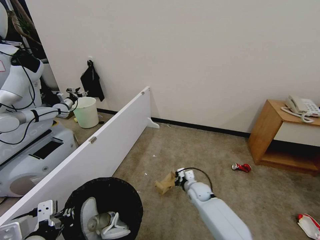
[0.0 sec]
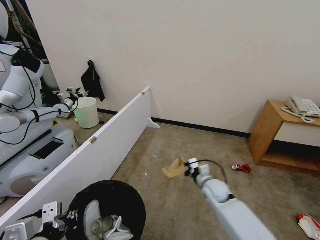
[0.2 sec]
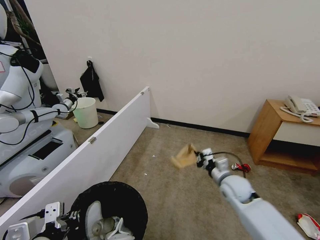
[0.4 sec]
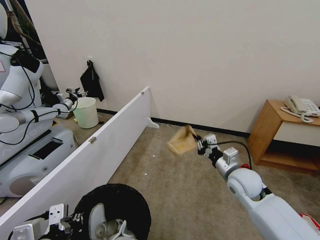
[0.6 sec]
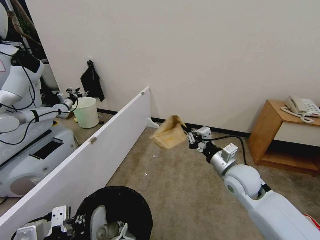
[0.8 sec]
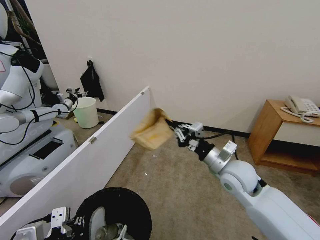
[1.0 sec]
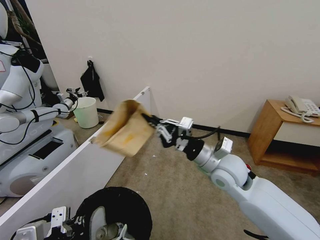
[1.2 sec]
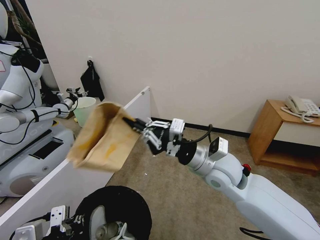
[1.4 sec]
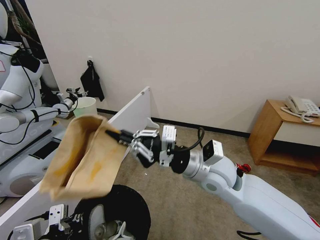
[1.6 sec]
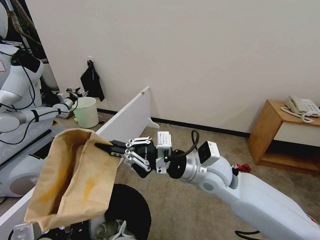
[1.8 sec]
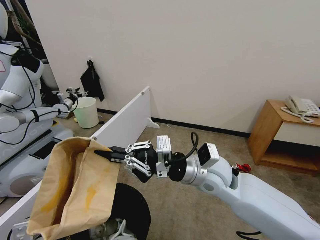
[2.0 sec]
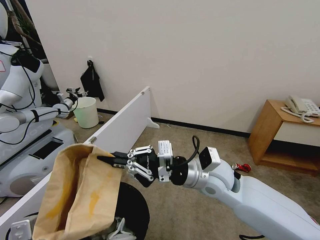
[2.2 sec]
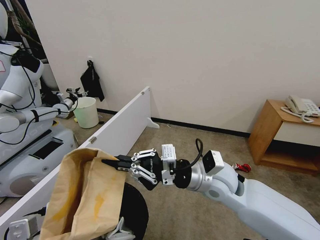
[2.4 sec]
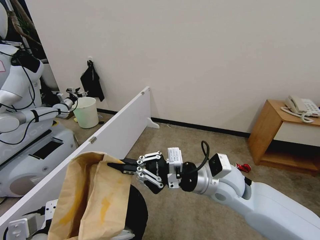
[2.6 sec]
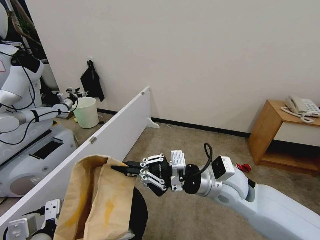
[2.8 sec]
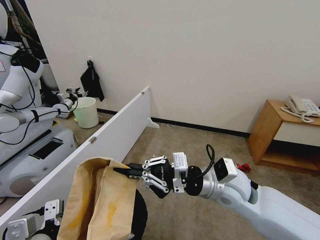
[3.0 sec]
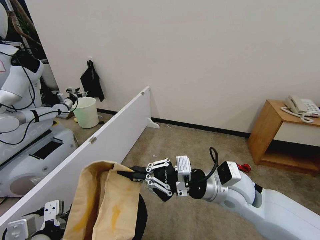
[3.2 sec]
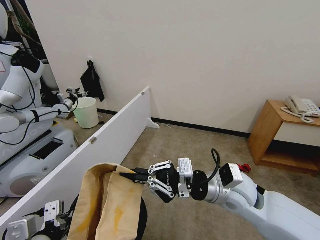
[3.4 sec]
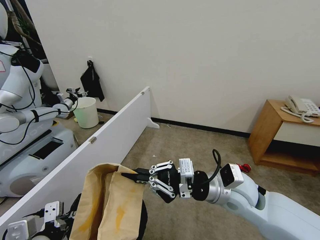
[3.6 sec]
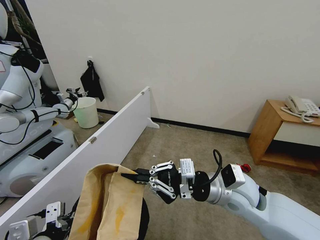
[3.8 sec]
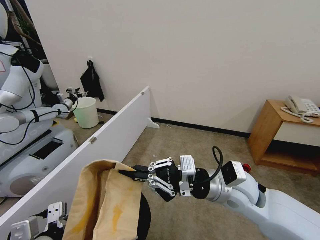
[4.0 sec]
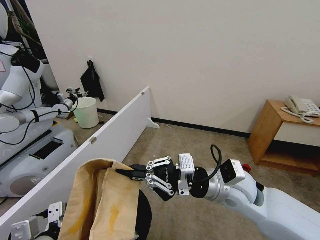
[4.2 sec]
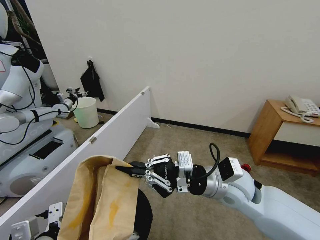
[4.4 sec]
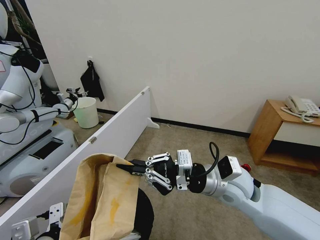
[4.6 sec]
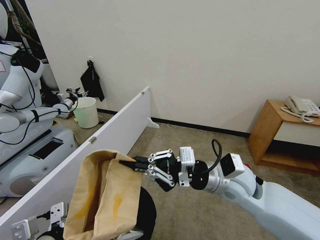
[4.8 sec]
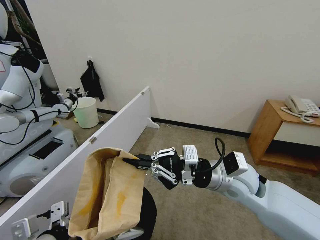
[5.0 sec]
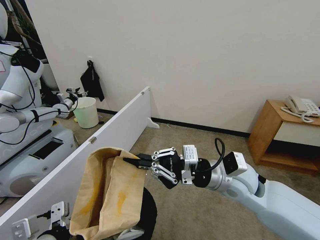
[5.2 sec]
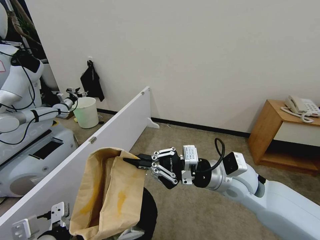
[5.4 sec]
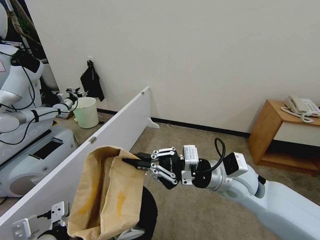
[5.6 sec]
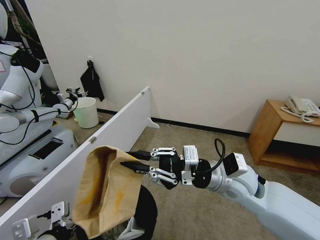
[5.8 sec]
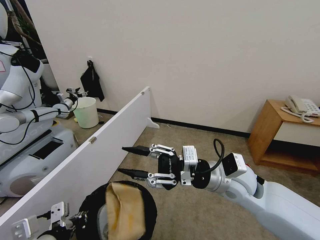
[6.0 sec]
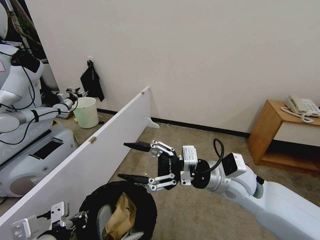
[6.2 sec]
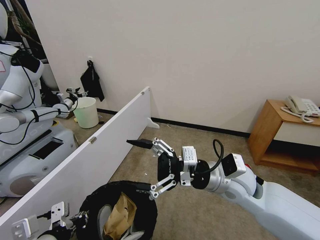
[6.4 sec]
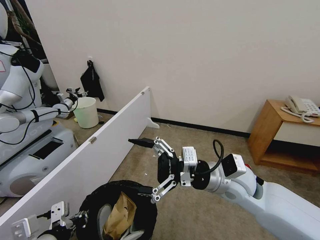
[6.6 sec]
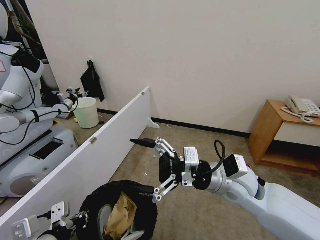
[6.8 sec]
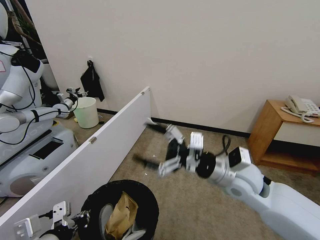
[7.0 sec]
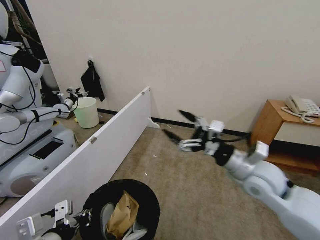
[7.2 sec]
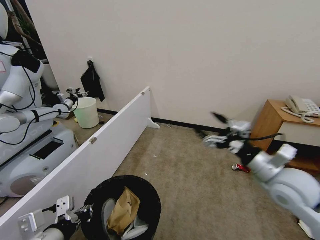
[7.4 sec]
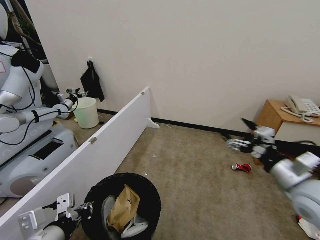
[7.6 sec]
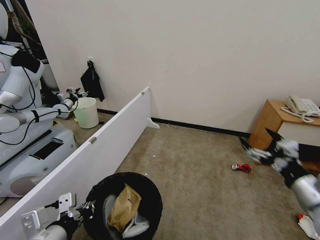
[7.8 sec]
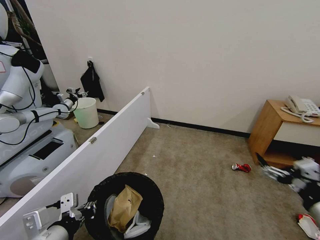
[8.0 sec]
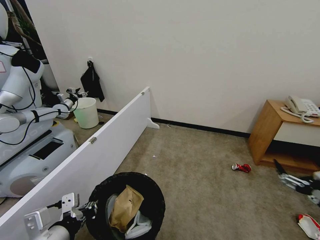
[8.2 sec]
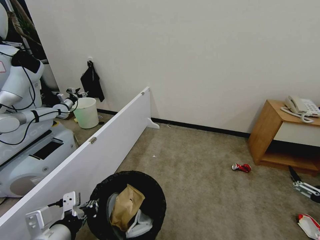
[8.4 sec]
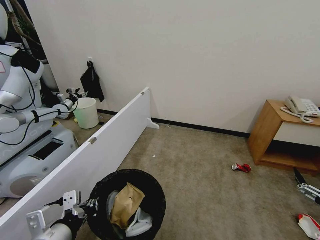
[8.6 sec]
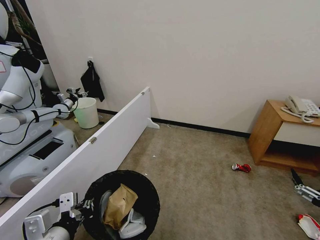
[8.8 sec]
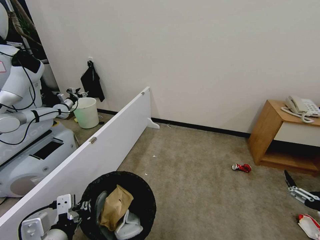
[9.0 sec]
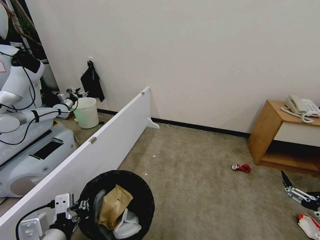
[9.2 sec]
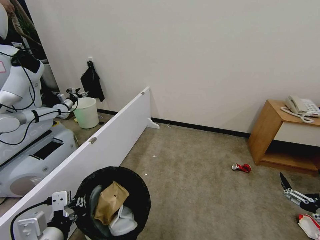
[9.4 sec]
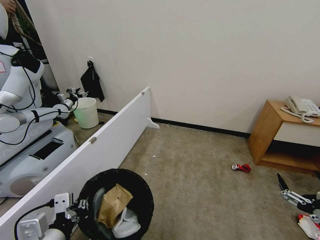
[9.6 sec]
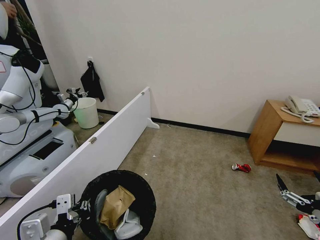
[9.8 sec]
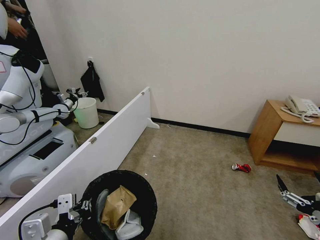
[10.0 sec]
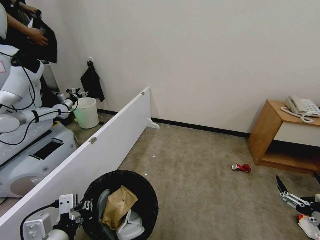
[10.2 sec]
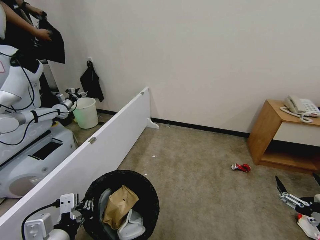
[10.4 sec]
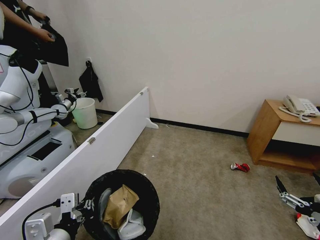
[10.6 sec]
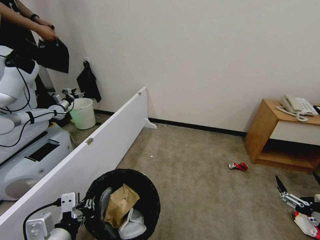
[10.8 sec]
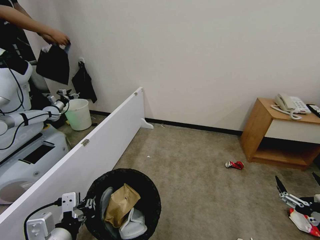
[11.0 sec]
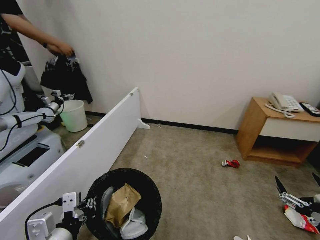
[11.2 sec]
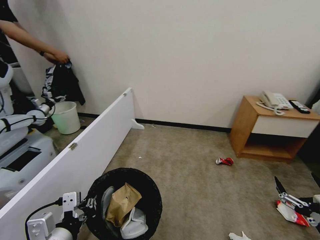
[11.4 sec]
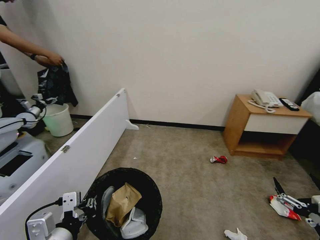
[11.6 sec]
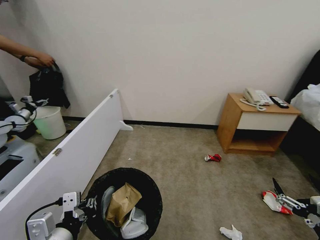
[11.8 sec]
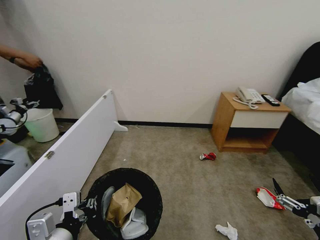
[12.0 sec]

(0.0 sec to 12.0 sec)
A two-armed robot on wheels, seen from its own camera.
Task of the whole recording: Pick up the trash bin, then pick up the garbage from the floor and place it into the trash bin.
0.0 sec - 1.6 sec: The right gripper heads upward, covering roughly 30 cm.
1.6 sec - 3.0 sec: The grippers make only small movements.
3.0 sec - 4.4 sec: There are only small adjustments of the grippers.
4.4 sec - 6.0 sec: The right gripper opens.
6.0 sec - 7.6 sec: The right gripper travels to the right by some 15 cm, and opens up.
7.6 sec - 9.0 sec: The right gripper moves backward, roughly 15 cm.
9.0 sec - 10.4 sec: The grippers move only a little.

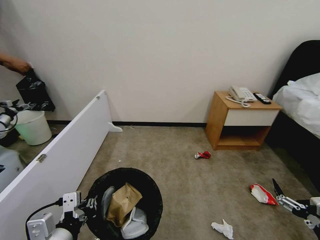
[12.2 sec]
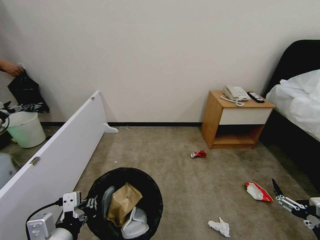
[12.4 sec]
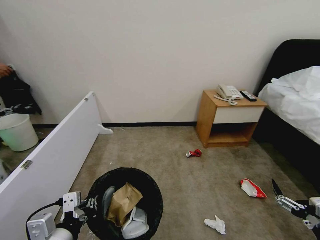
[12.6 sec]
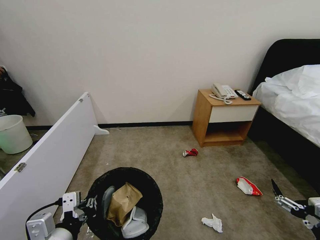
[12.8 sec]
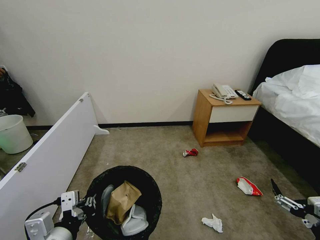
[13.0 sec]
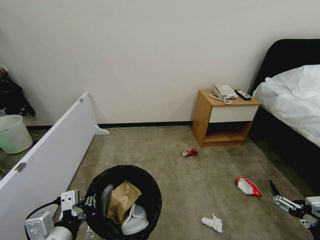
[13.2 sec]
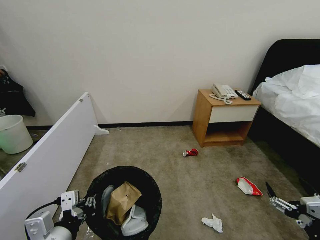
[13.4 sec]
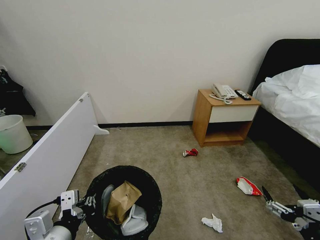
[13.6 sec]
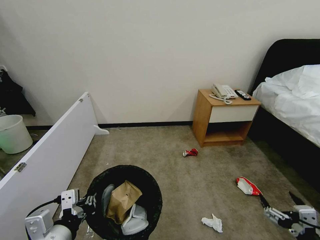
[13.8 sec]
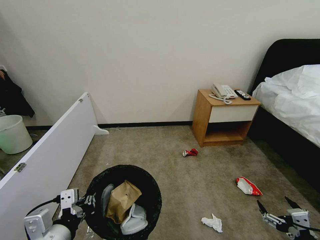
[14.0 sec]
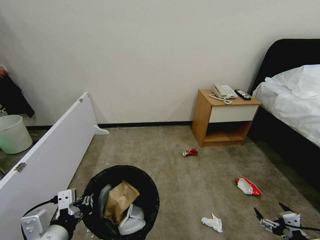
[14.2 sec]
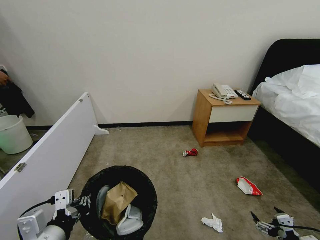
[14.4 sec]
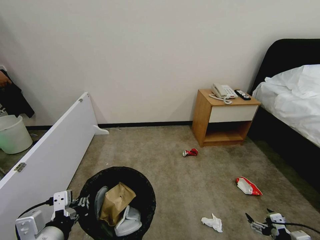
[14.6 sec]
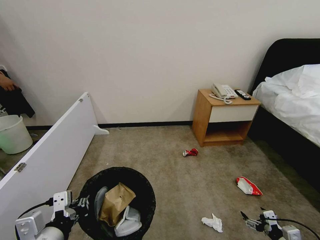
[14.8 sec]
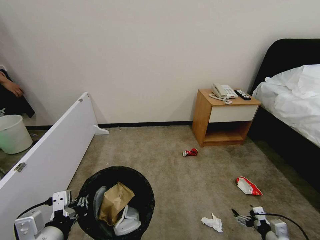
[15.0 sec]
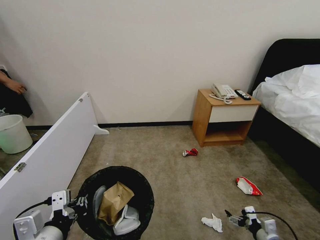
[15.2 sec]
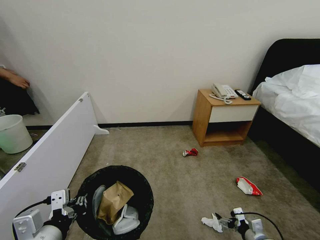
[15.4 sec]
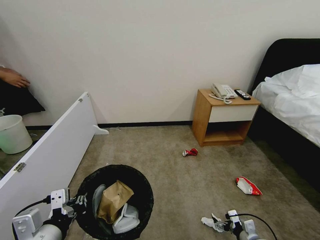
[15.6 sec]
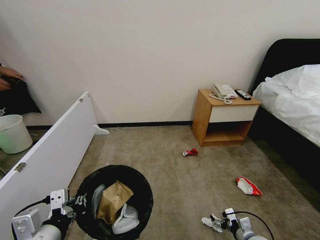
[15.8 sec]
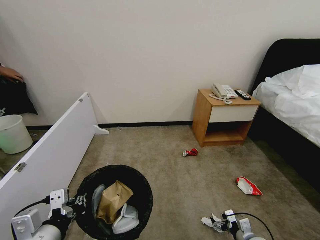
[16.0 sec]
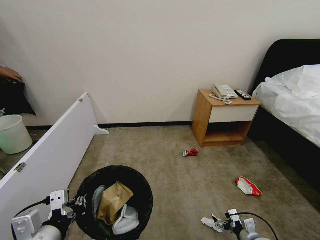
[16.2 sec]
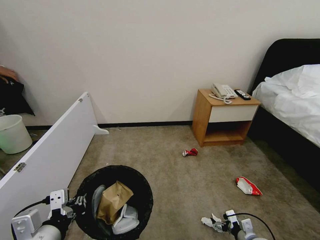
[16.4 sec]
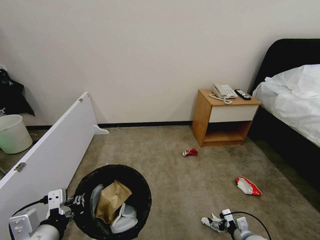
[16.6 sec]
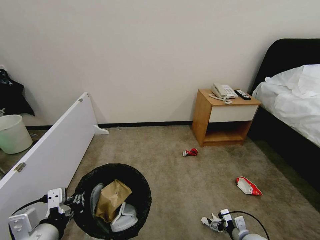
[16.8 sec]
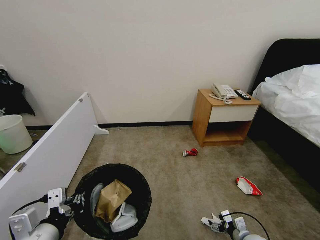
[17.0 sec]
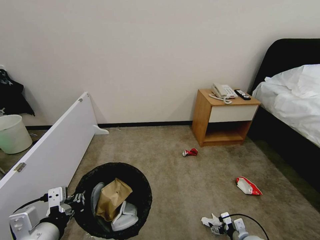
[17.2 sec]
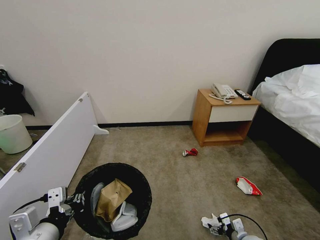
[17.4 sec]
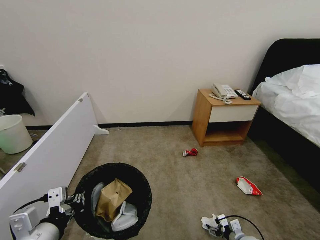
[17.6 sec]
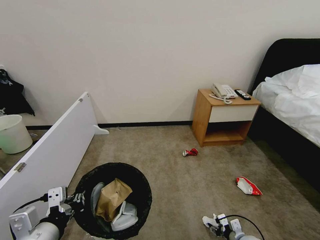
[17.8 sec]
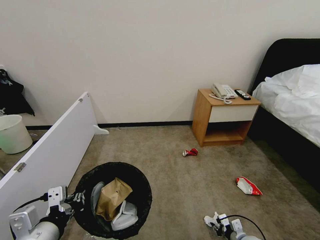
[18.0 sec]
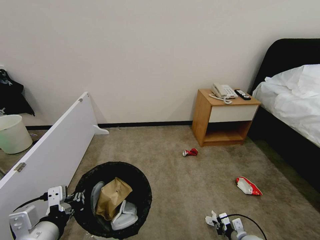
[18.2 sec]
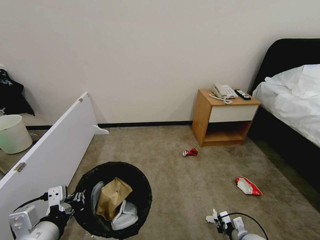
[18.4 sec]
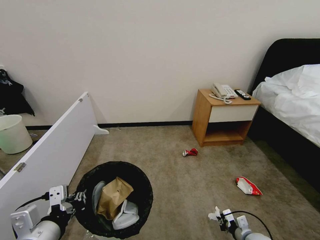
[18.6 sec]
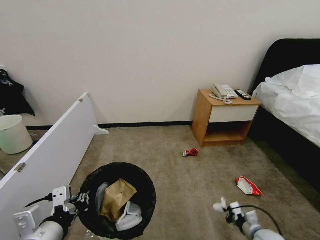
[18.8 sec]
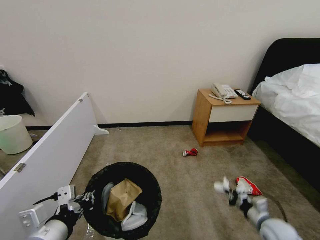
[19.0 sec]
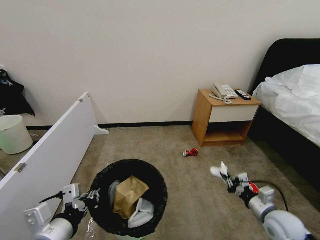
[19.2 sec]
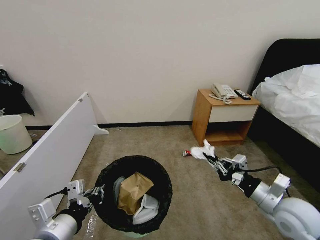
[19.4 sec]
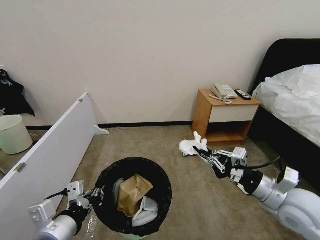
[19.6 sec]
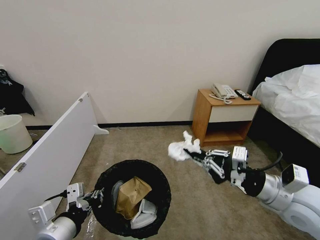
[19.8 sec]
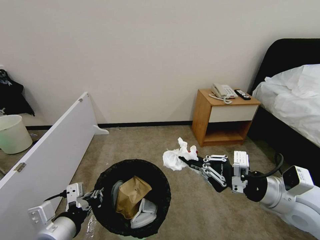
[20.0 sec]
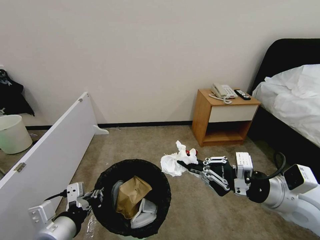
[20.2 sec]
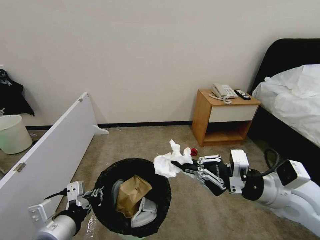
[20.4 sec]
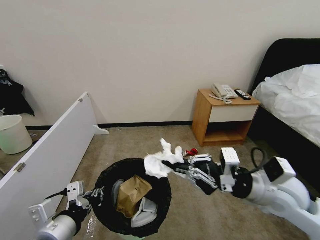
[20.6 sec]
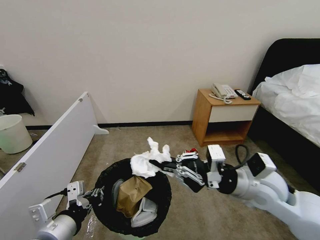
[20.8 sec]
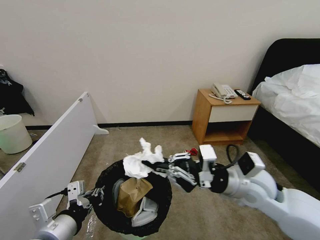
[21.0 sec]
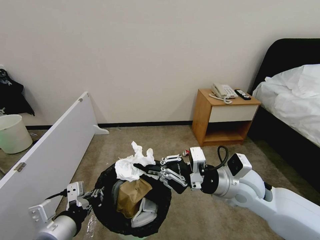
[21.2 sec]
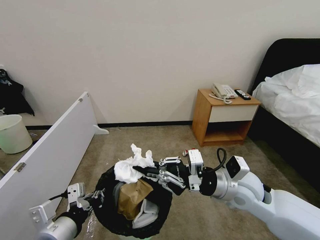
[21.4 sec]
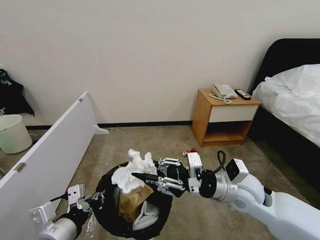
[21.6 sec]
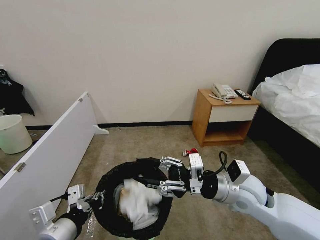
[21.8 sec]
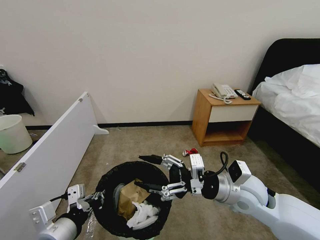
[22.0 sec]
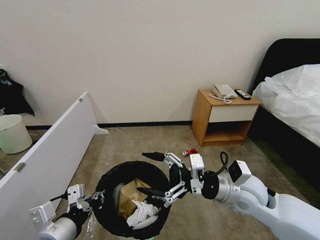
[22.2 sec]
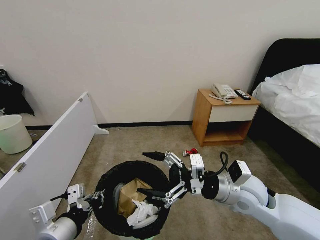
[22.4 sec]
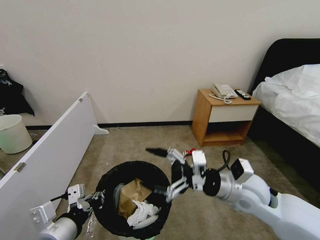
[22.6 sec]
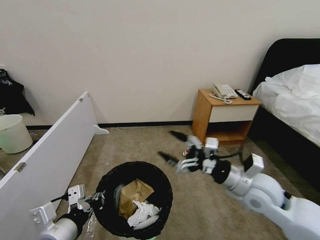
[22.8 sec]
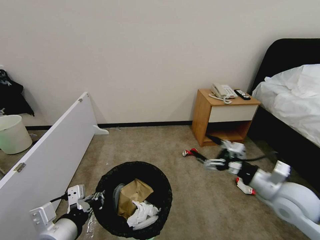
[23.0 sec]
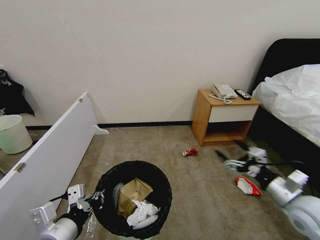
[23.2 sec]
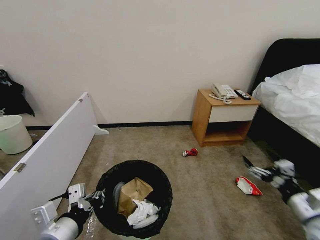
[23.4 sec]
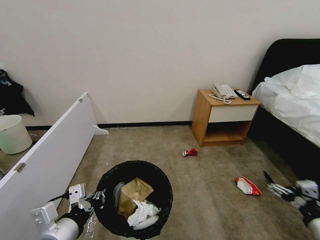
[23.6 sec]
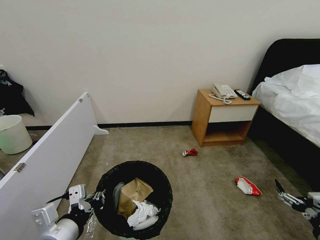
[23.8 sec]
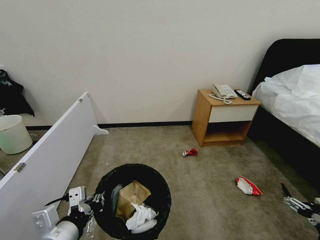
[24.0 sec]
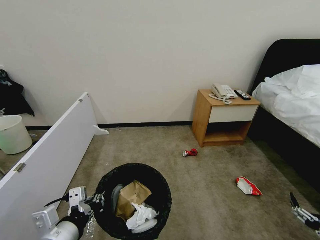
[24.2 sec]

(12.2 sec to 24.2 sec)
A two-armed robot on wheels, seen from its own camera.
Task of the whole recording: Pick up the trash bin, then pick up the garbage from the floor and place it into the trash bin.
13.8 sec - 15.2 sec: The right gripper moves downward and forward, some 20 cm.
15.2 sec - 16.6 sec: The right gripper moves to the left, some 5 cm.
16.6 sec - 18.2 sec: The right gripper closes up.
18.2 sec - 19.8 sec: The right gripper is displaced upward by about 35 cm.
19.8 sec - 21.2 sec: The right gripper shifts roughly 10 cm to the left and forward.
21.2 sec - 22.6 sec: The right gripper opens up.
22.6 sec - 24.2 sec: The right gripper moves to the right, backward and downward, roughly 35 cm.
